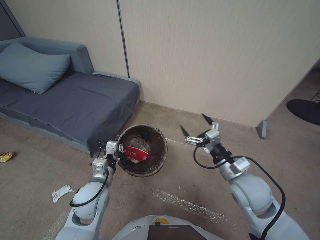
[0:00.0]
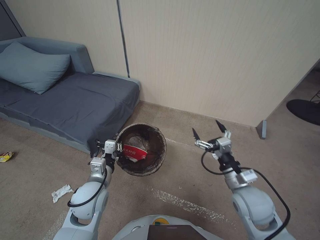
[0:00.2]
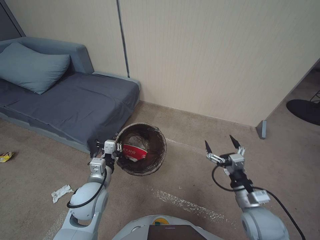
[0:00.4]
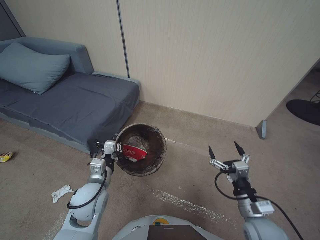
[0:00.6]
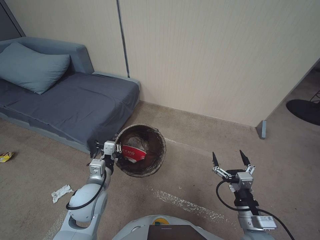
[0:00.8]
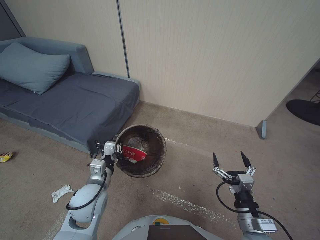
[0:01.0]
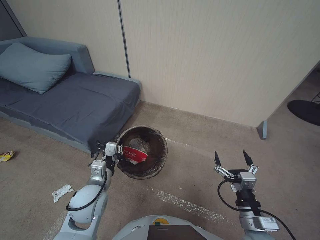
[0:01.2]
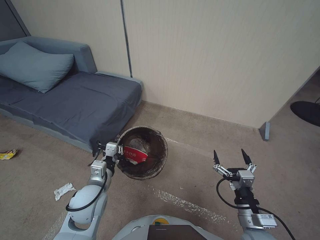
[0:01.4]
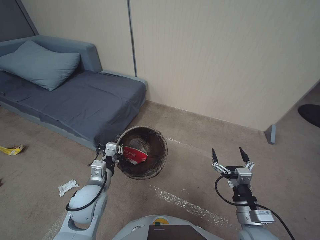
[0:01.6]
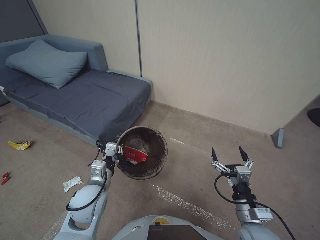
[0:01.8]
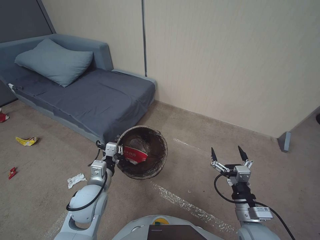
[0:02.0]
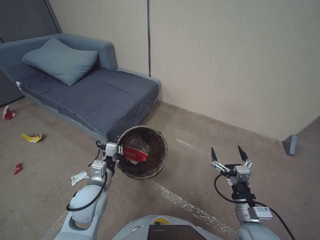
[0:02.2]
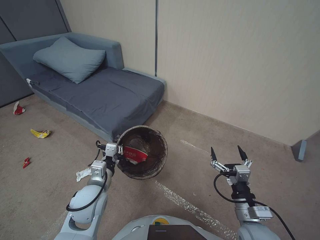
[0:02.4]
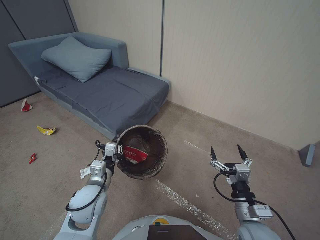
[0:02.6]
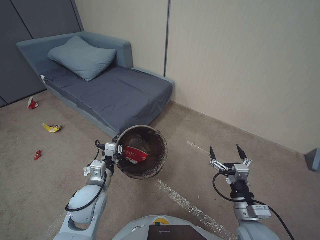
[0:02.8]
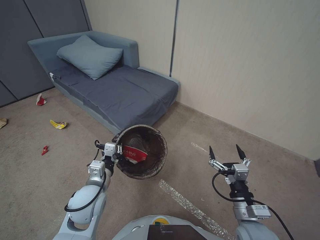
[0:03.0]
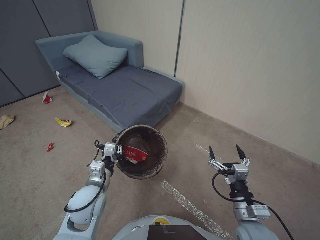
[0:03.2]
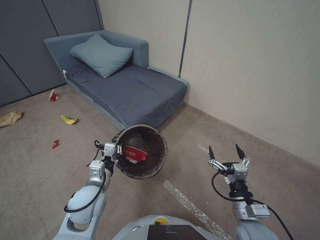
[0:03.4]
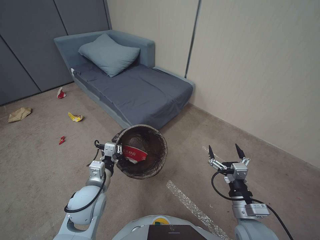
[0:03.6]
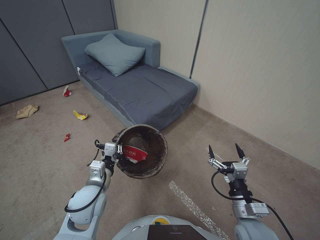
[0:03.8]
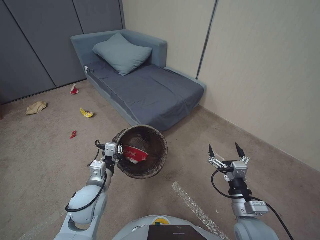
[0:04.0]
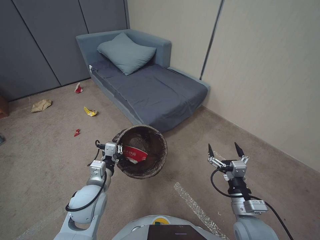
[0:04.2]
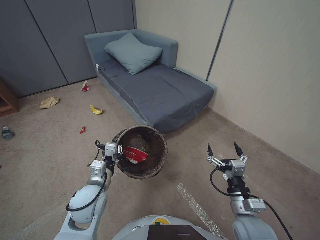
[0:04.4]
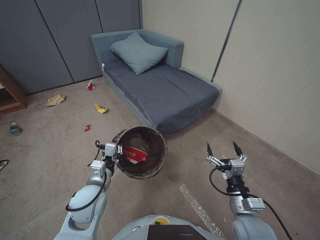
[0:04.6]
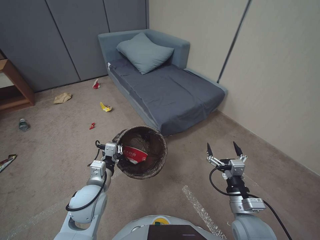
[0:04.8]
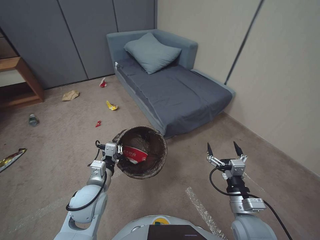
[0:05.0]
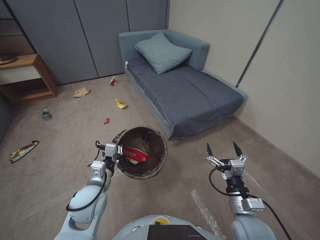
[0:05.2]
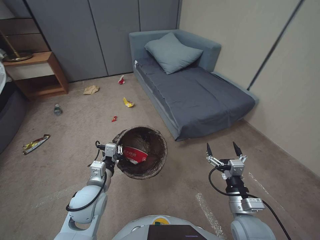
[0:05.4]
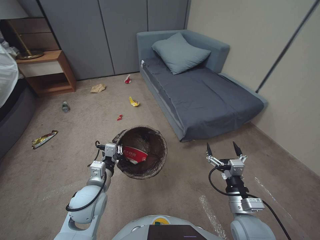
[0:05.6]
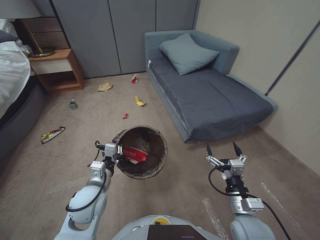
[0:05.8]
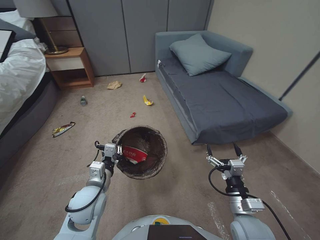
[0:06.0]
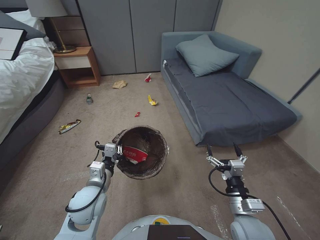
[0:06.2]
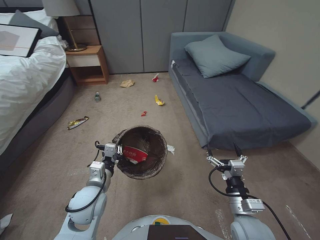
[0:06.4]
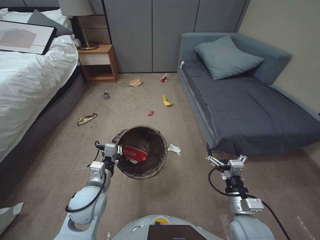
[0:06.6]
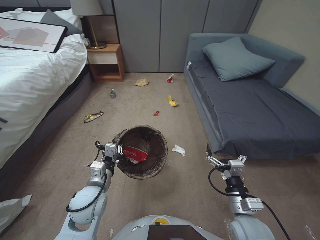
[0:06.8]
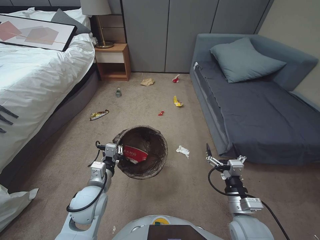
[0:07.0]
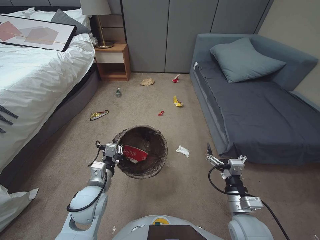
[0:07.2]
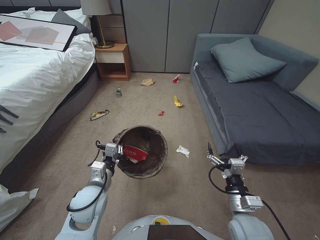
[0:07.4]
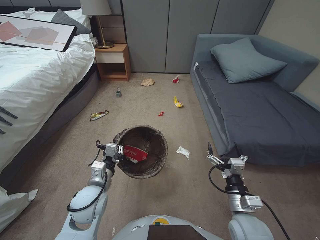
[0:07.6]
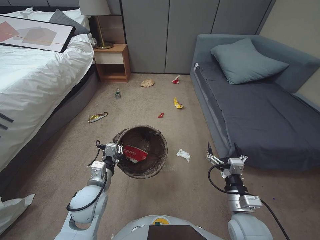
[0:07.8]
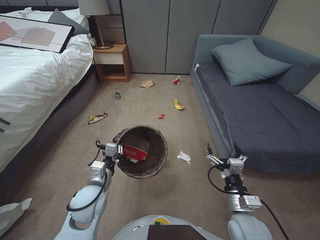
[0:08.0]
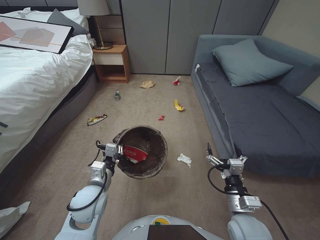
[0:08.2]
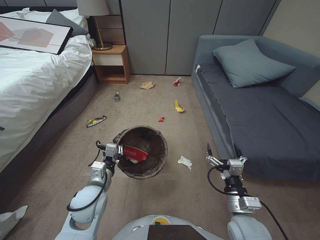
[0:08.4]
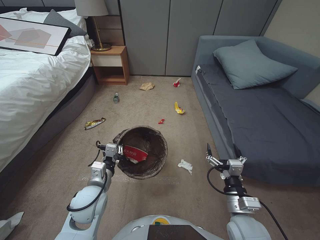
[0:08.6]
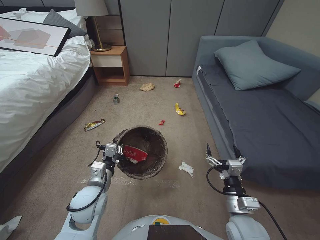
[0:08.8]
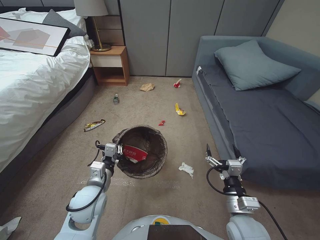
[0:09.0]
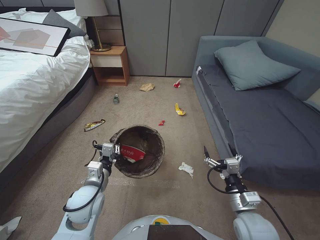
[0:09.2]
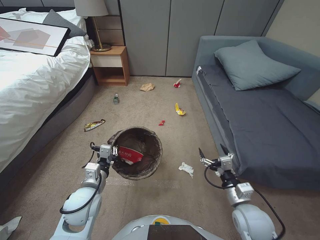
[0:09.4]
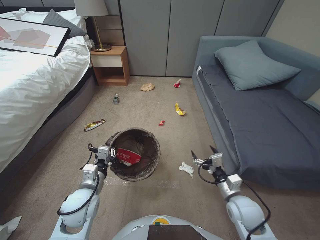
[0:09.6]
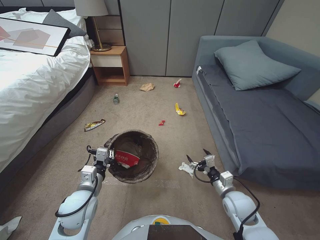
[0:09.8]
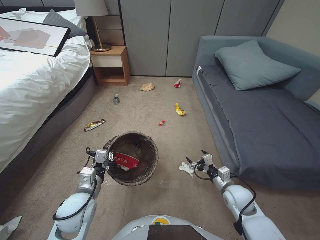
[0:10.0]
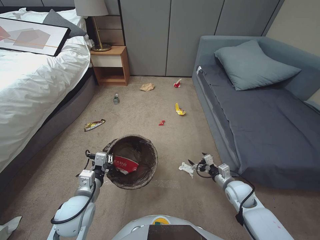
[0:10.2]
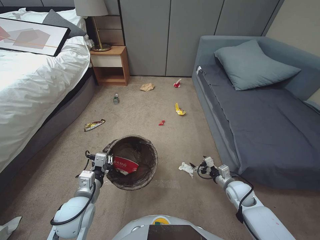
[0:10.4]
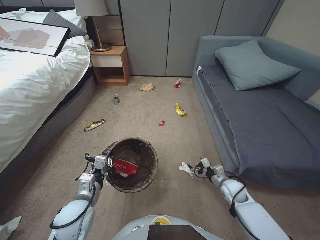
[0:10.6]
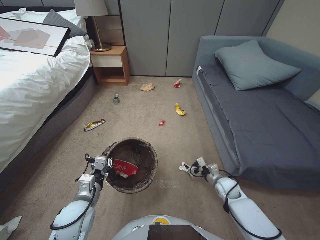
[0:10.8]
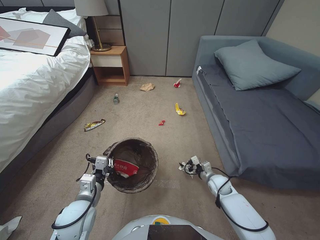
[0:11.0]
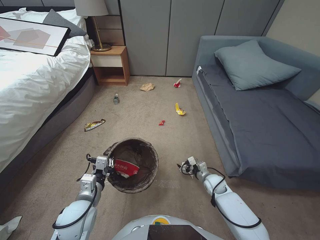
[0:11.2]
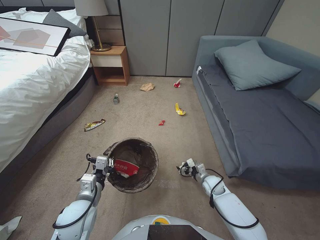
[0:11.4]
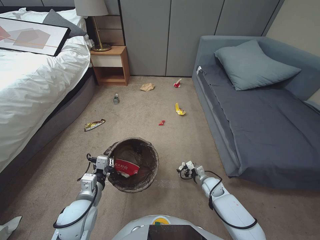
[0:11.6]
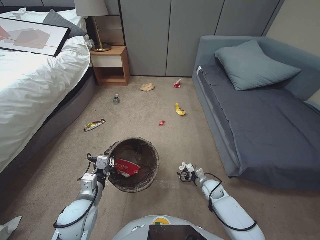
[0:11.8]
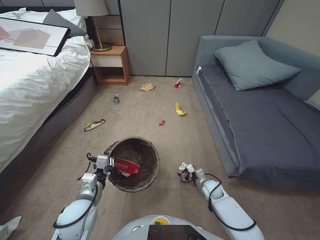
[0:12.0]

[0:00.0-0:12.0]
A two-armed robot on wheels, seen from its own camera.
Task of the whole recording: Pick up the trash bin, then pick up the garbage from the floor and place it into the trash bin.
0:00.0 to 0:01.6: The right gripper shifts roughly 15 cm backward and downward.
0:07.6 to 0:09.0: Neither gripper changes place.
0:09.0 to 0:10.4: The right gripper shifts approximately 20 cm forward, downward and to the right.
0:10.4 to 0:12.0: The right gripper travels downward and to the left by approximately 15 cm.

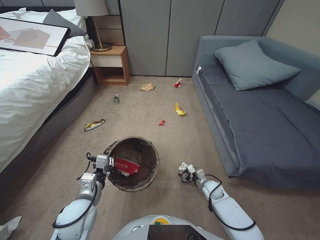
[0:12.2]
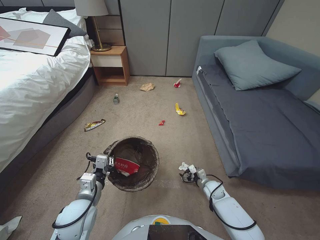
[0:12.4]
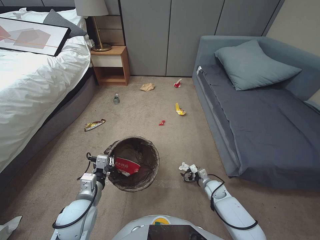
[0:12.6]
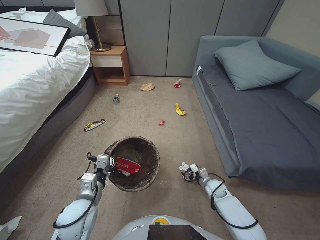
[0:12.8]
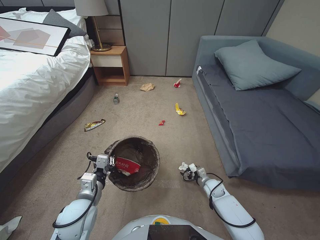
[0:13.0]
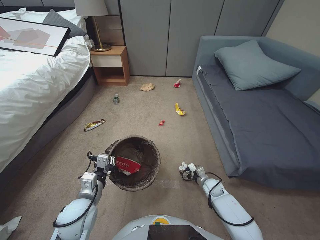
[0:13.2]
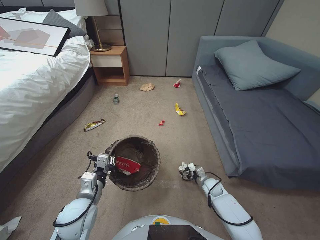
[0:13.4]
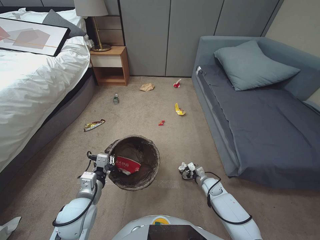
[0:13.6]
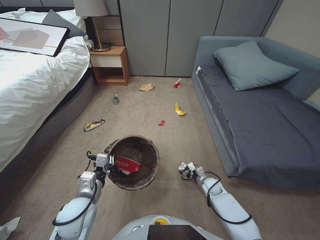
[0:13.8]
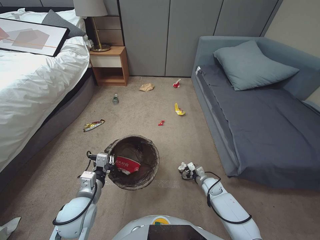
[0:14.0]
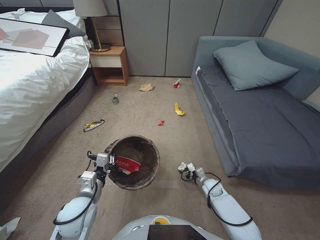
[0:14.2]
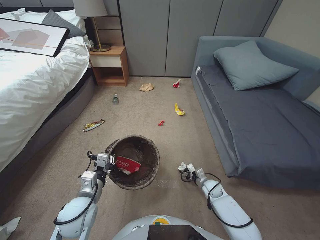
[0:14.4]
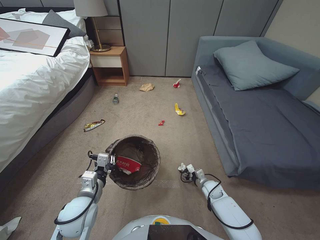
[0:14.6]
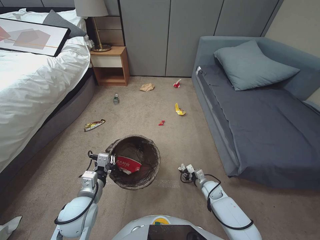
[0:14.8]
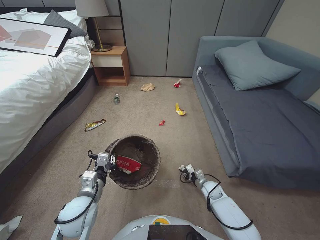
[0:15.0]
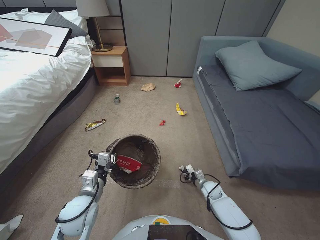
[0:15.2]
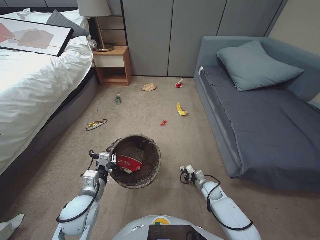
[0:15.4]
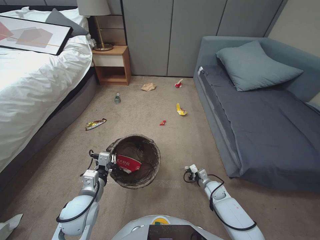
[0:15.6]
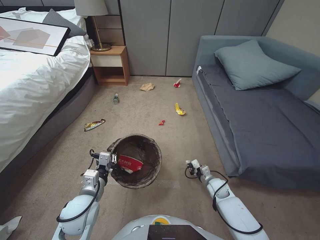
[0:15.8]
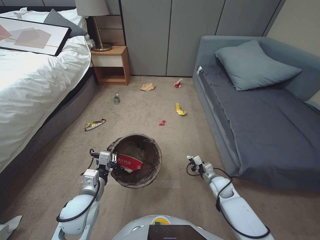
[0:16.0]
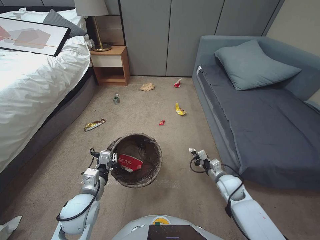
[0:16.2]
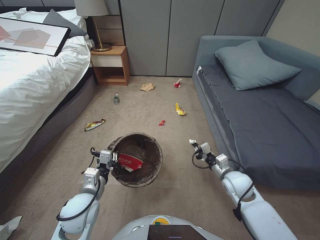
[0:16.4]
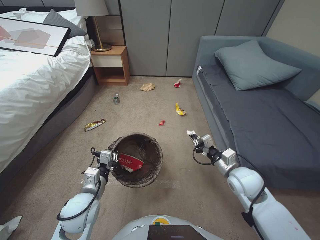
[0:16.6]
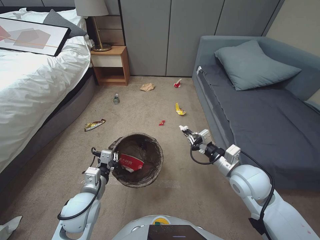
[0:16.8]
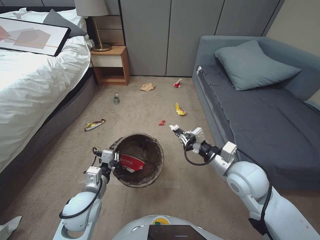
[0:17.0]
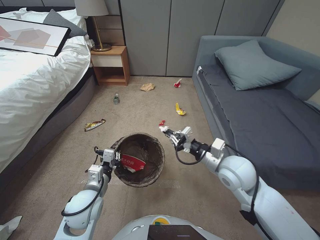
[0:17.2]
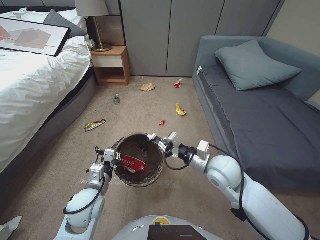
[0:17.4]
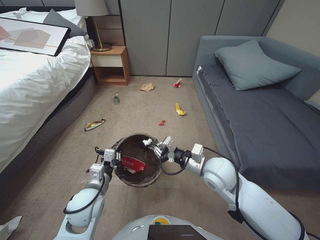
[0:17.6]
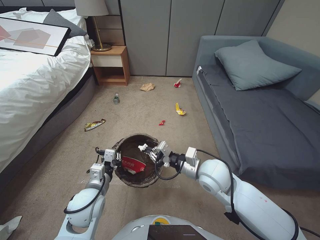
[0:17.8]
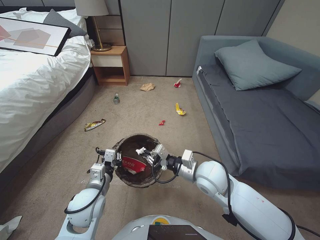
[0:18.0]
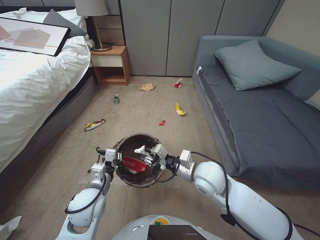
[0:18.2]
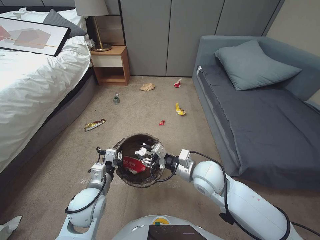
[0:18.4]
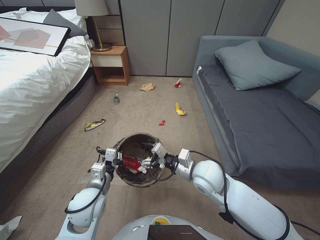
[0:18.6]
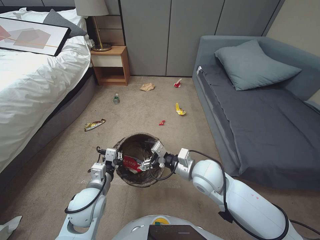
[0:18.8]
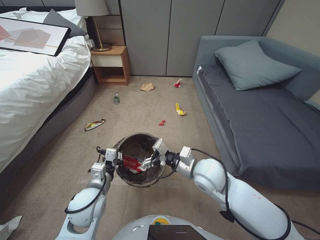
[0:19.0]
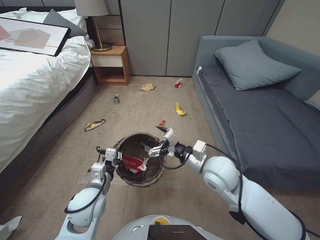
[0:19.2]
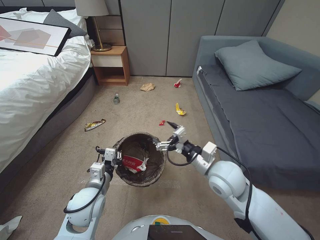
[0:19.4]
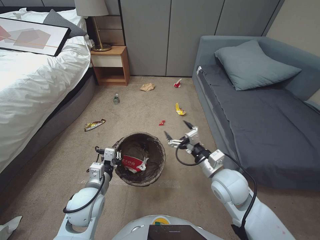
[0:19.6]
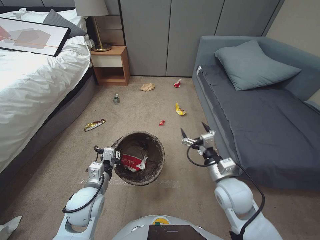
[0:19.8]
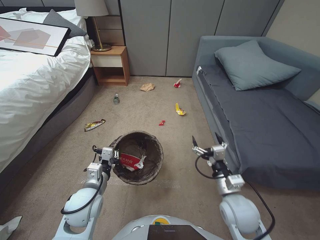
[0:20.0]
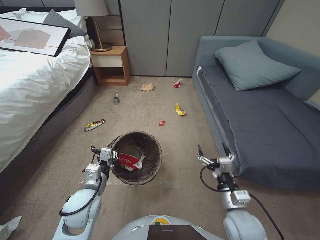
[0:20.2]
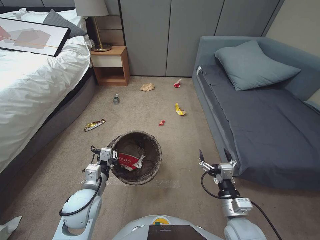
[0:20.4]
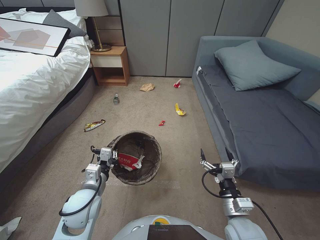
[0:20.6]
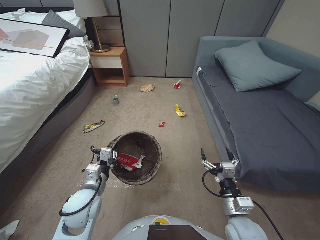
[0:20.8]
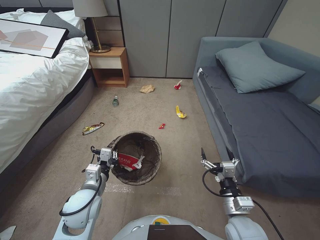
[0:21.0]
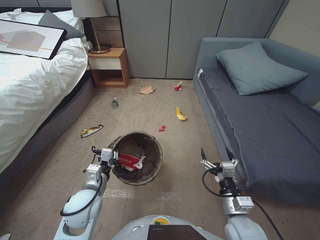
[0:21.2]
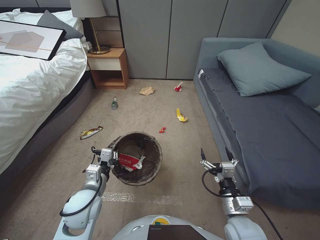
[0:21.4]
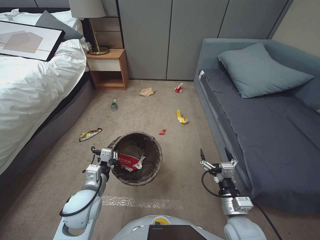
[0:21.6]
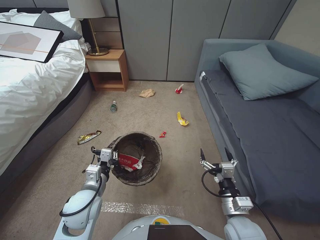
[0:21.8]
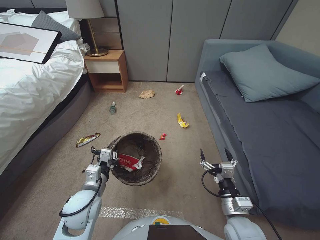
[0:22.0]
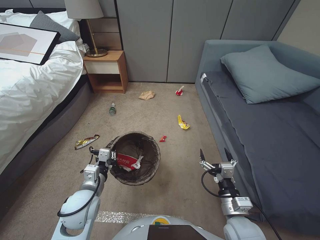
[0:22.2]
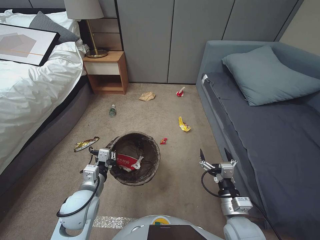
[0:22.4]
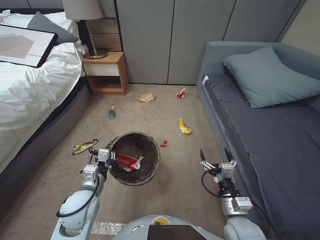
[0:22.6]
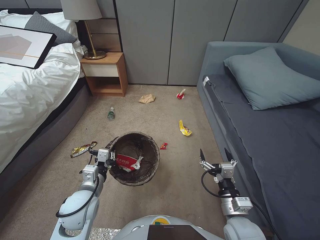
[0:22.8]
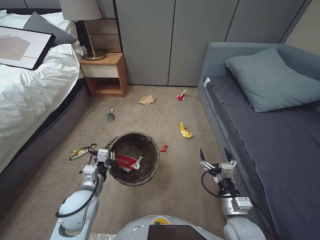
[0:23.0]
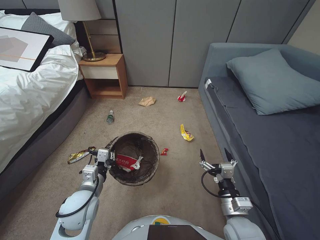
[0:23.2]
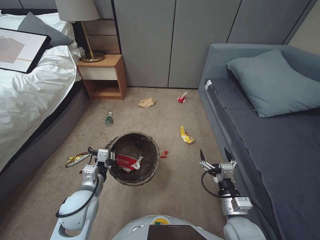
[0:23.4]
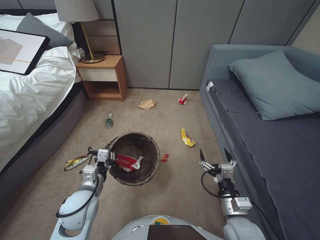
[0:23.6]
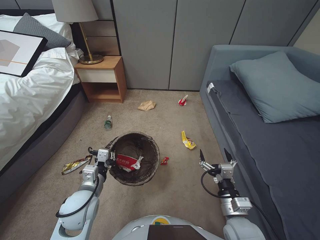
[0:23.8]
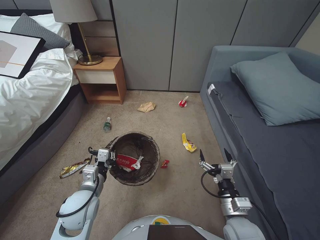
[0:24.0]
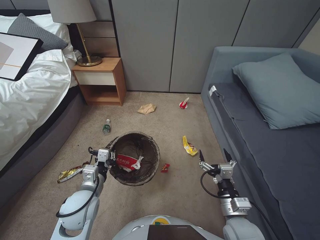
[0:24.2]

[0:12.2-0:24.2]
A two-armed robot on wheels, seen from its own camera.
Task of the whole recording: Pick up the trash bin, then pick up the garbage from the floor and place it into the trash bin.
0:12.2 to 0:13.8: The grippers make only small movements.
0:13.8 to 0:15.2: The right gripper closes its fingers.
0:15.2 to 0:16.6: The right gripper is displaced upward by roughly 25 cm.
0:16.6 to 0:18.2: The right gripper is displaced to the left and upward by roughly 15 cm.
0:18.2 to 0:19.8: The right gripper shifts about 5 cm to the right, and opens.
0:19.8 to 0:21.2: The right gripper shifts about 10 cm backward and downward.
